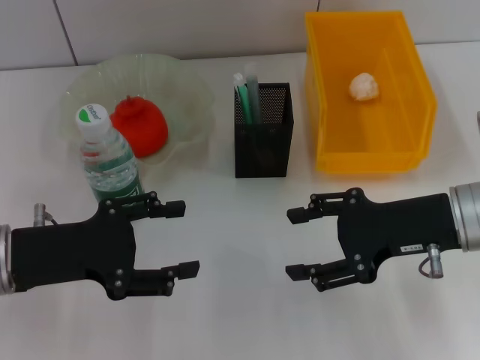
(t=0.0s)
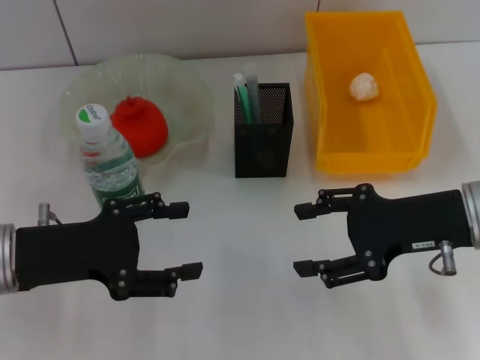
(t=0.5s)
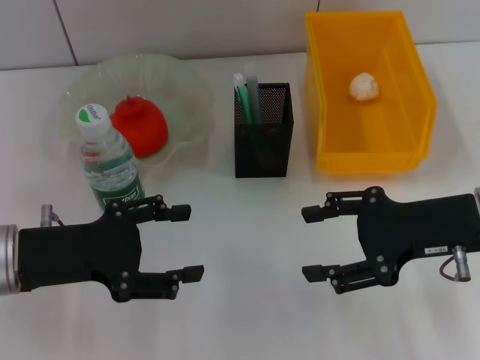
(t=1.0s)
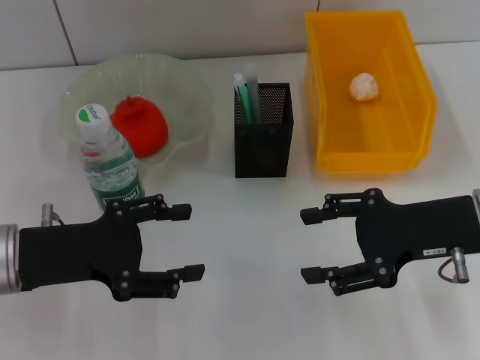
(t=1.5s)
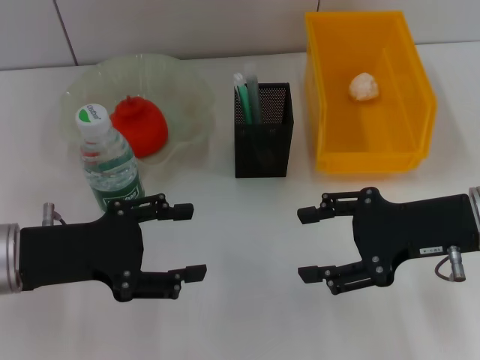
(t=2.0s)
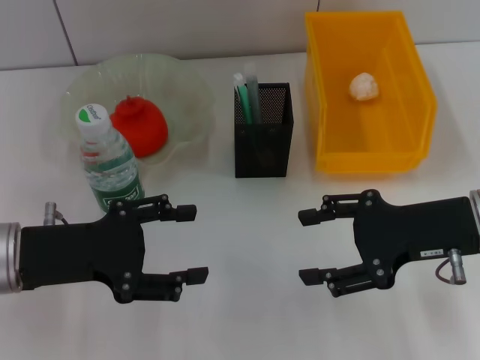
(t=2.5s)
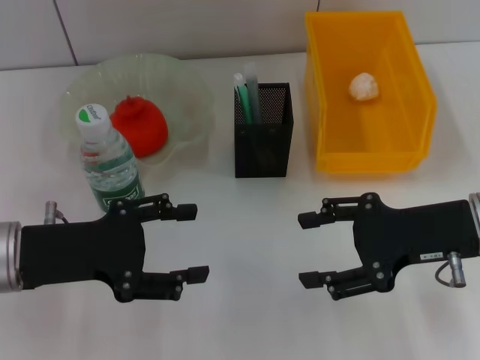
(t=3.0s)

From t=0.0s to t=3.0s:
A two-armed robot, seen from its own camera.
From t=0.0s to t=1.5s: The grippers stay close to where they were, moving slightly.
From t=1.5s to t=3.0s: Neither gripper changes place.

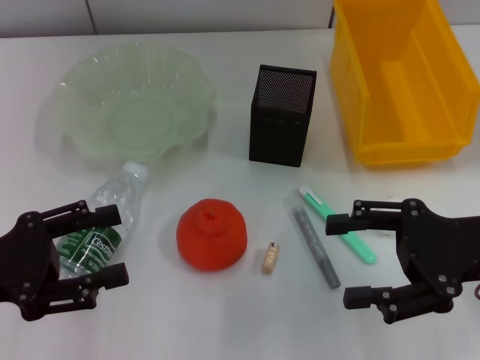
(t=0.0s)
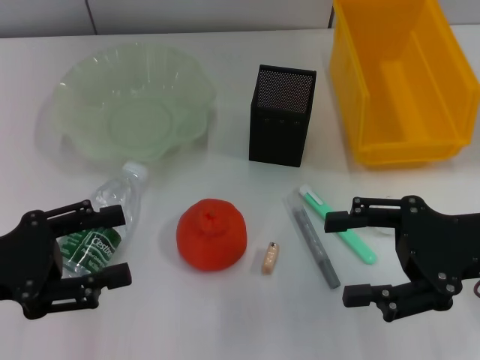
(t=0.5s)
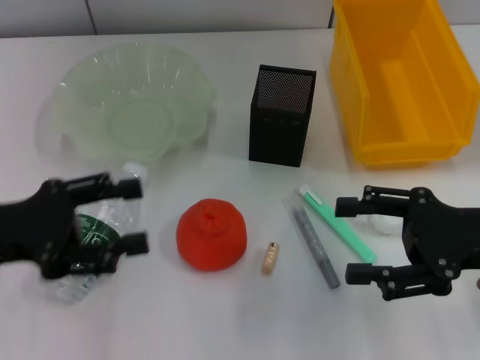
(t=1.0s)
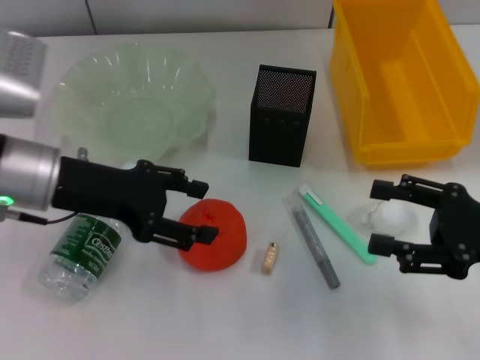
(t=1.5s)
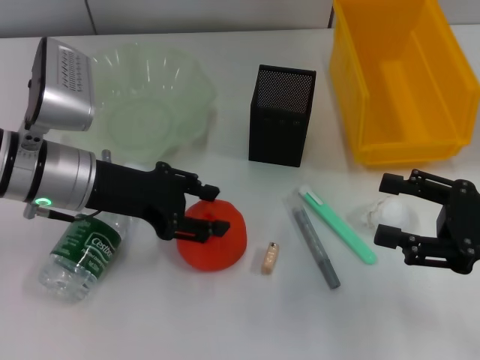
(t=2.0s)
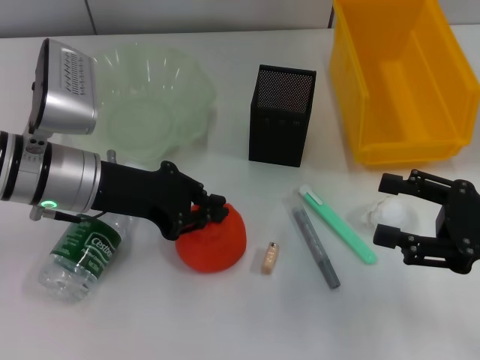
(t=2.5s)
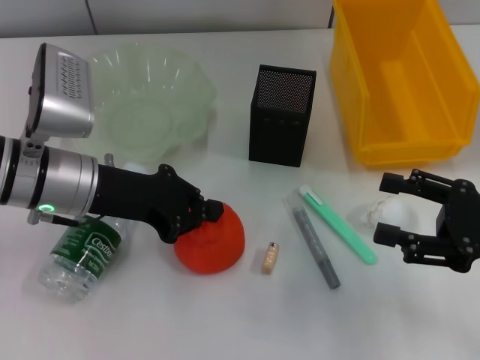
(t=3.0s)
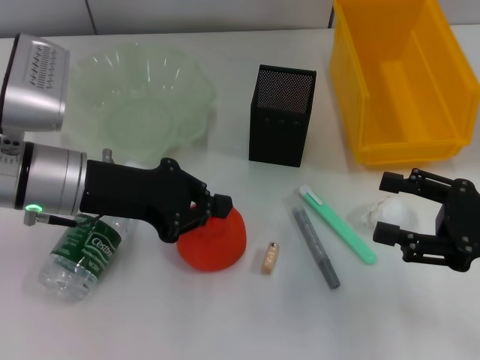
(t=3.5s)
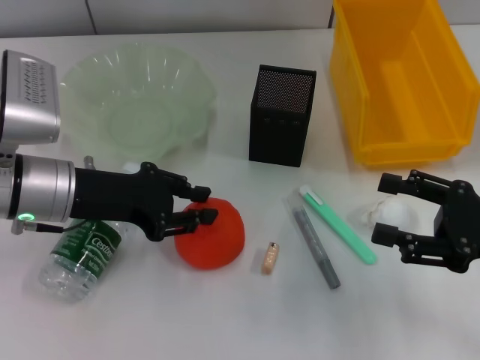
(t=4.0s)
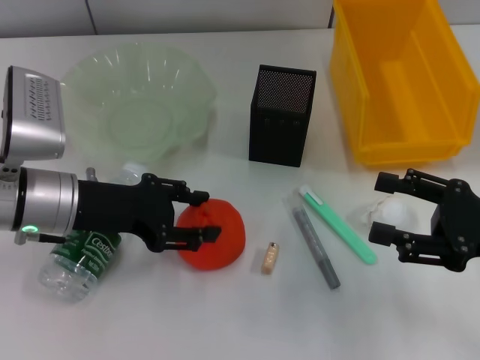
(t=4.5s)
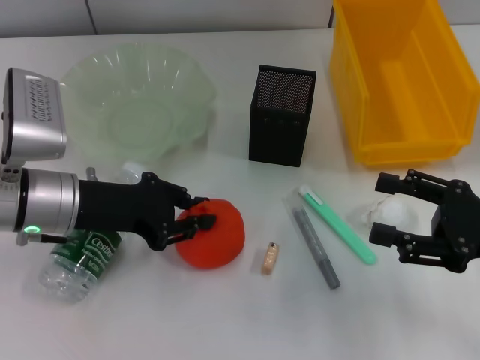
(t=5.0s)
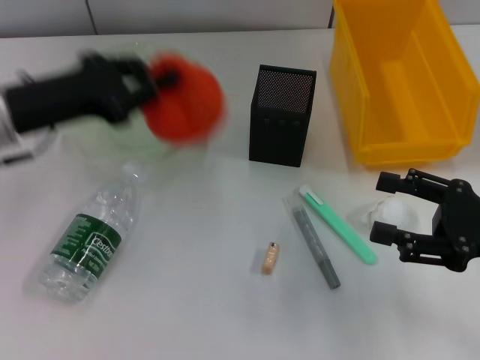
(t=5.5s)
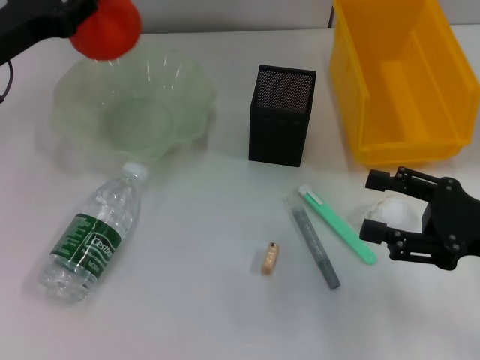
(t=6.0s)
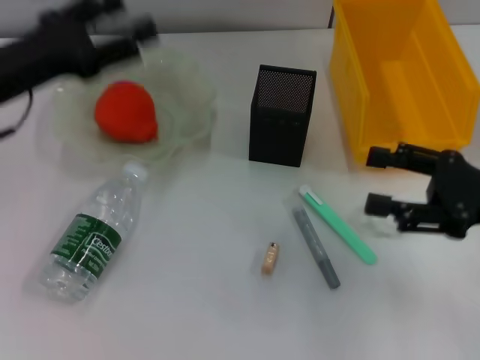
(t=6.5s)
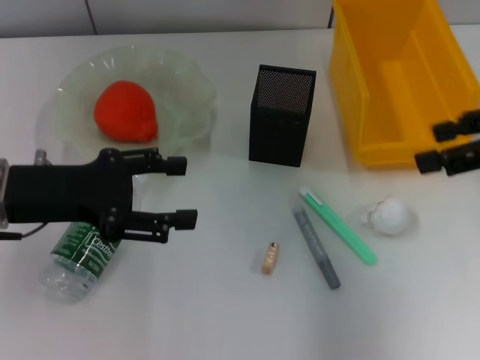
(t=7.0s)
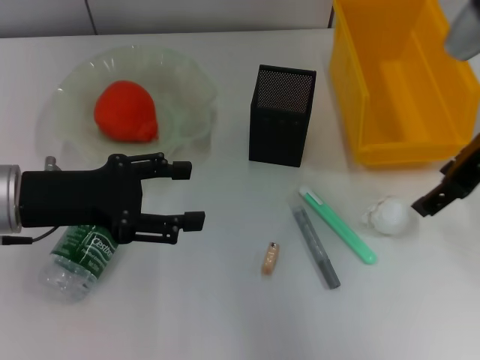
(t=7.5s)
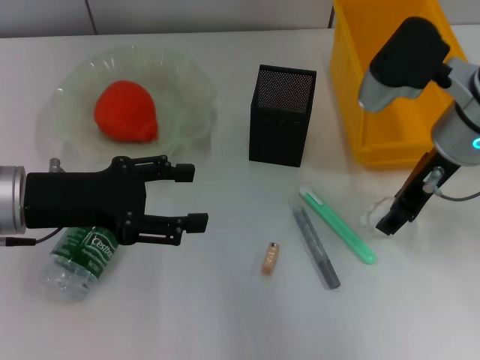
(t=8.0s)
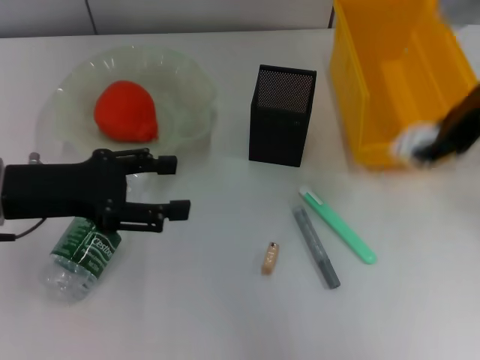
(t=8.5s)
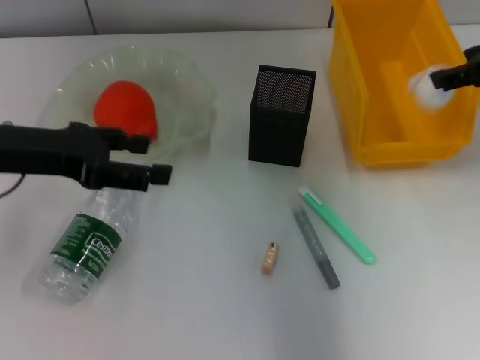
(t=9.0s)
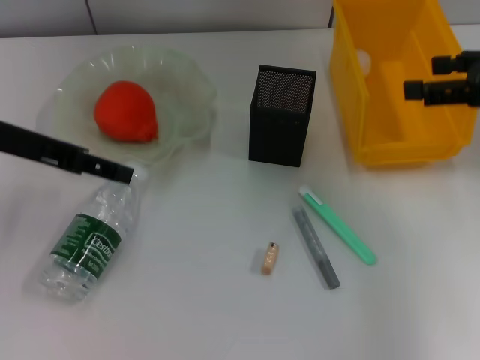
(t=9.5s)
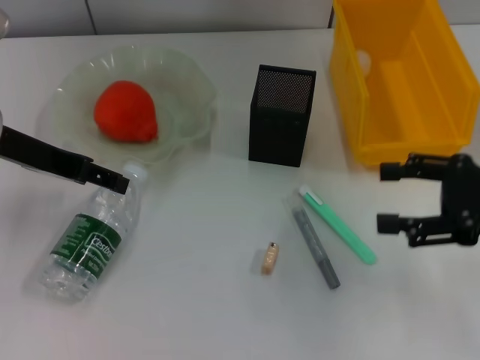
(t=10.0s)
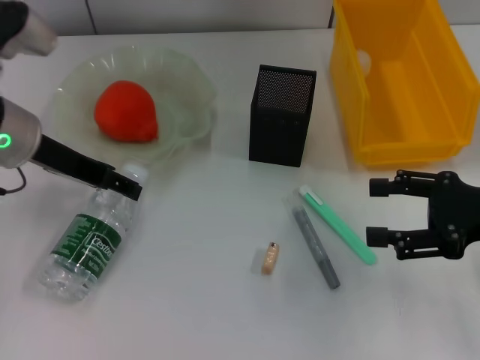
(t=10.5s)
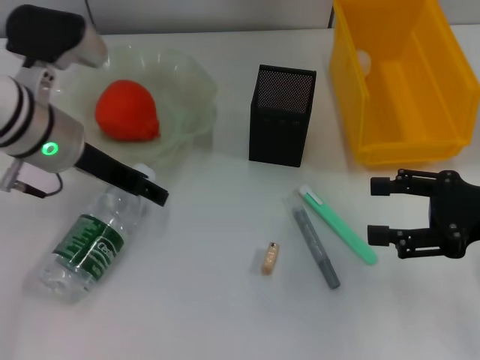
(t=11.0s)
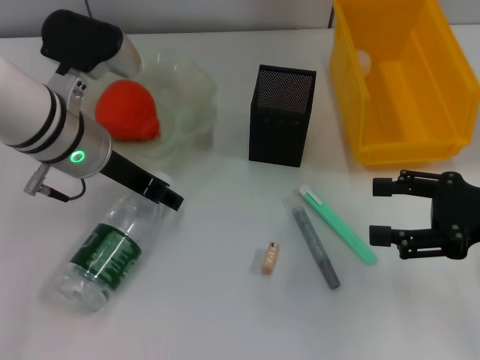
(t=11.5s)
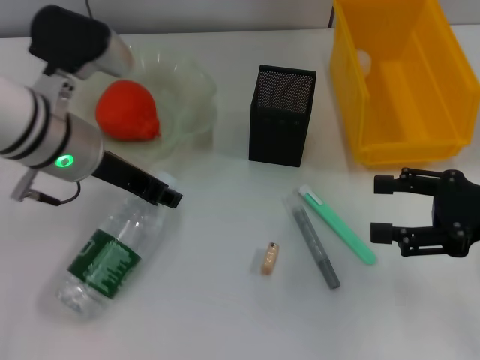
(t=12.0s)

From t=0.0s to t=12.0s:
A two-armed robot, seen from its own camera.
Step, from t=0.0s to t=4.5s: Grab the orange with the left hand.
Step, from t=5.5s to t=6.5s: Place the orange into the fruit bowl with the left hand.
Step, from t=7.0s to t=8.0s: Grab the paper ball with the right hand.
Step, from t=8.5s to t=9.0s: Place the paper ball into the trash can with the right hand.
Step, from t=9.5s to t=11.5s: Grab the water bottle with the left hand.
From t=0.0s to t=2.0s: The left gripper moves forward and to the right, roughly 15 cm, while the right gripper ends up some 5 cm from where it was.
From t=2.0s to t=4.0s: The left gripper closes up.
From t=4.0s to t=6.0s: The left gripper goes some 10 cm to the left and forward, and opens, then closes once more.
From t=6.0s to t=8.0s: The right gripper heads forward, to the left and upward, covering approximately 20 cm. Meanwhile the left gripper moves backward, approximately 10 cm, and opens its fingers.
From t=8.0s to t=10.0s: The left gripper moves upward and forward, about 10 cm. The right gripper travels to the right and backward by approximately 15 cm.
From t=10.0s to t=12.0s: The left gripper goes approximately 10 cm to the right, and closes up.

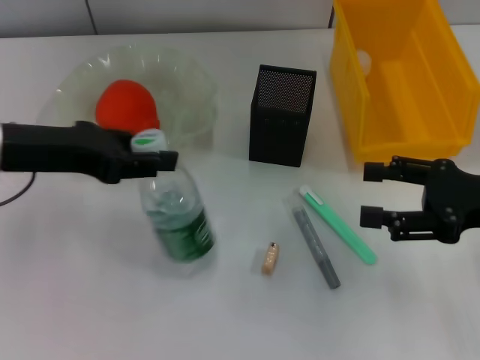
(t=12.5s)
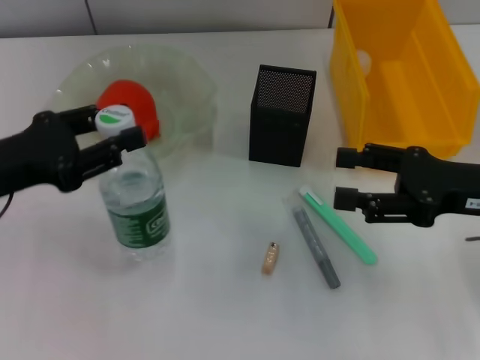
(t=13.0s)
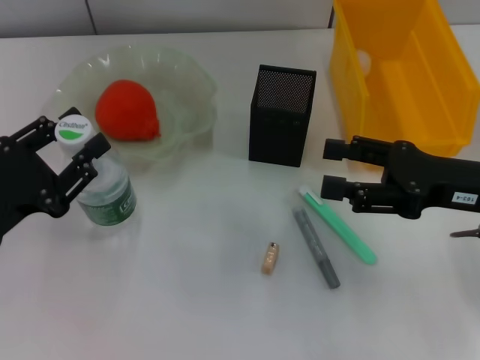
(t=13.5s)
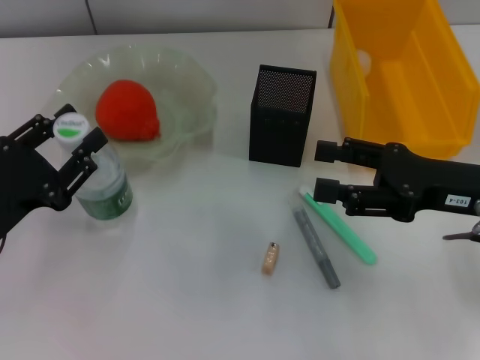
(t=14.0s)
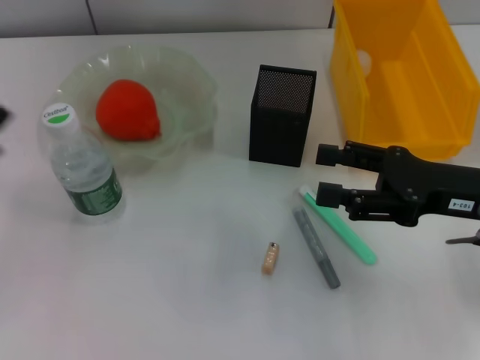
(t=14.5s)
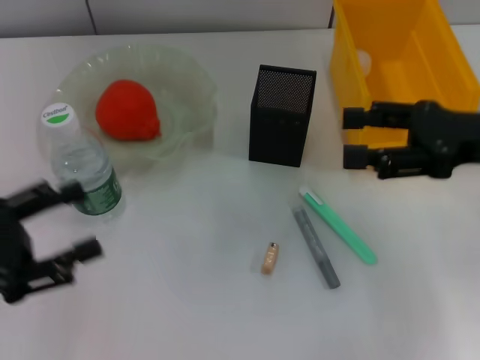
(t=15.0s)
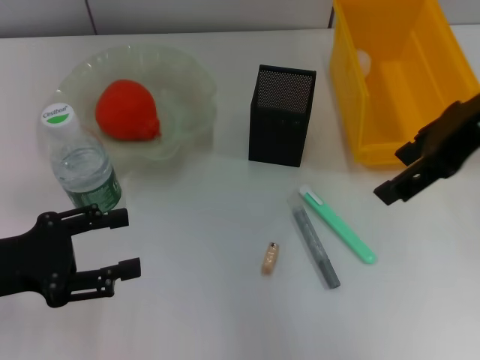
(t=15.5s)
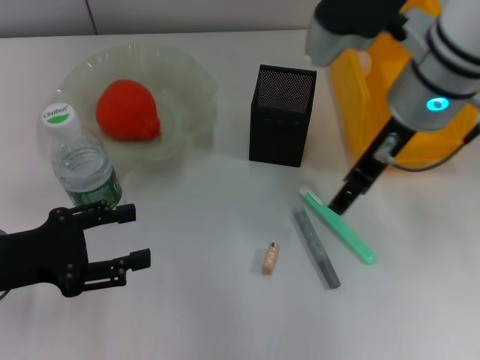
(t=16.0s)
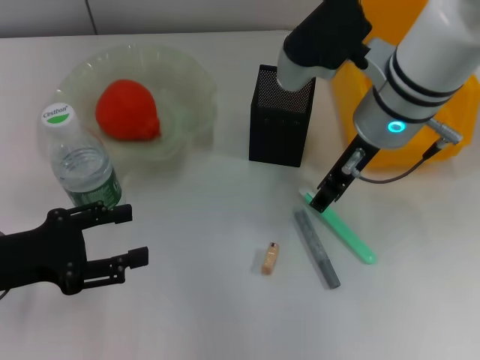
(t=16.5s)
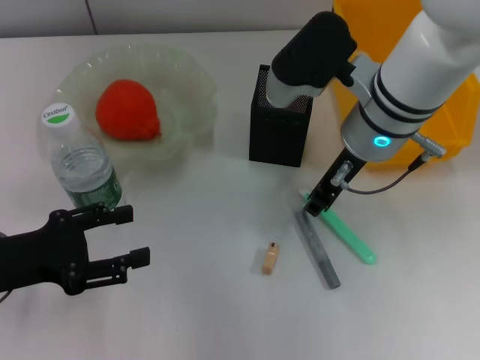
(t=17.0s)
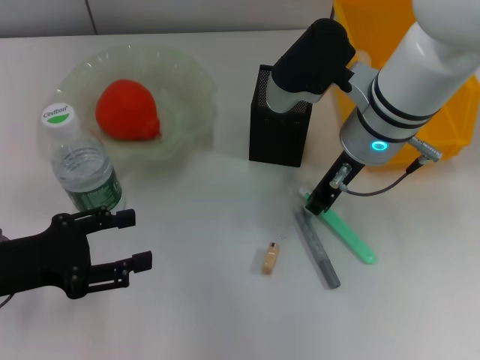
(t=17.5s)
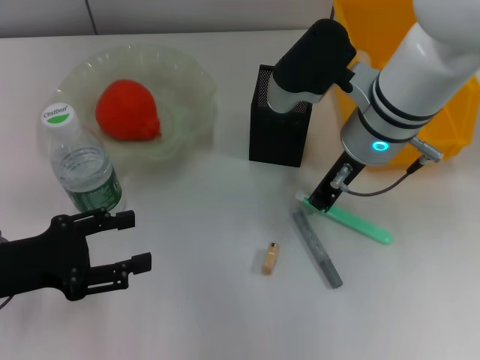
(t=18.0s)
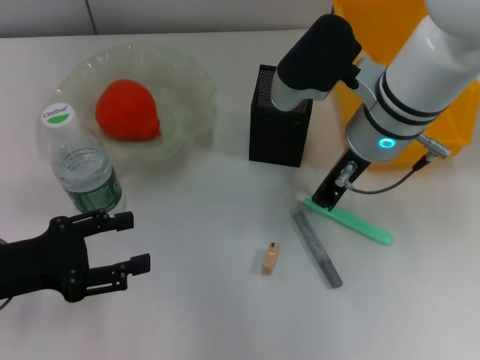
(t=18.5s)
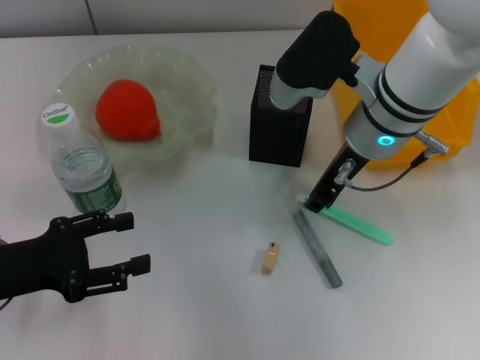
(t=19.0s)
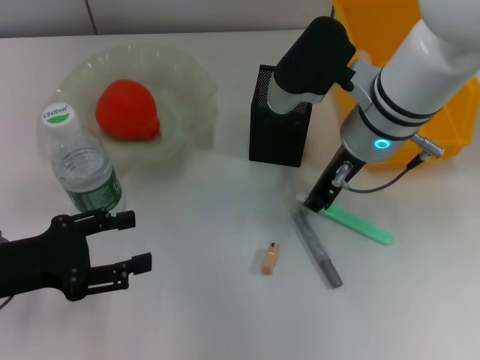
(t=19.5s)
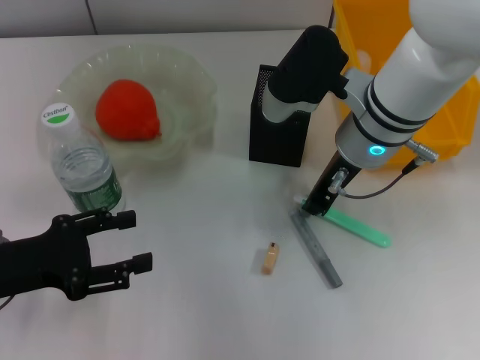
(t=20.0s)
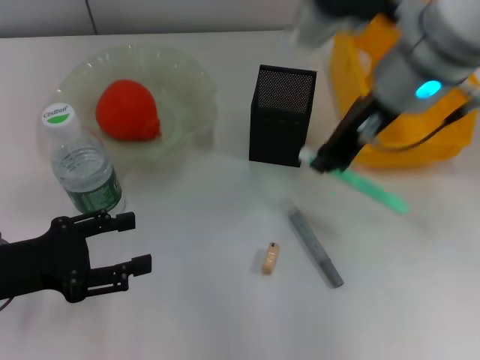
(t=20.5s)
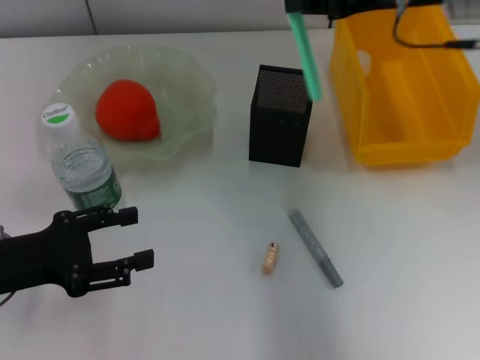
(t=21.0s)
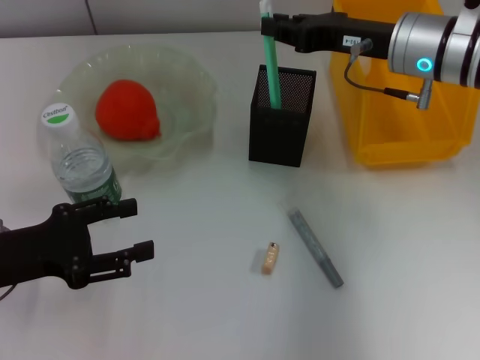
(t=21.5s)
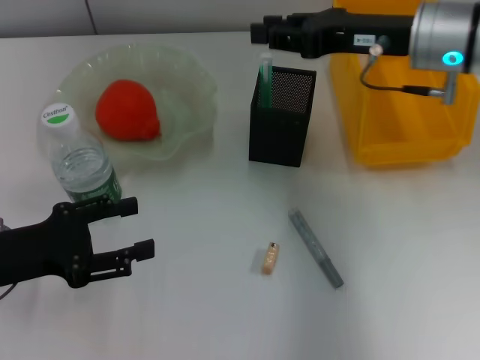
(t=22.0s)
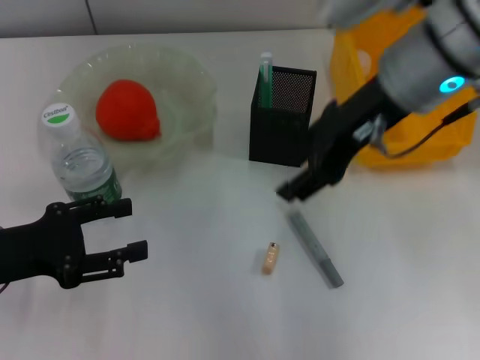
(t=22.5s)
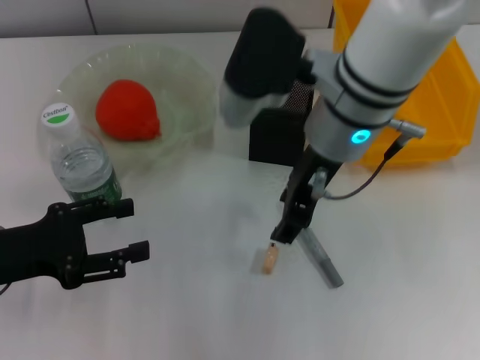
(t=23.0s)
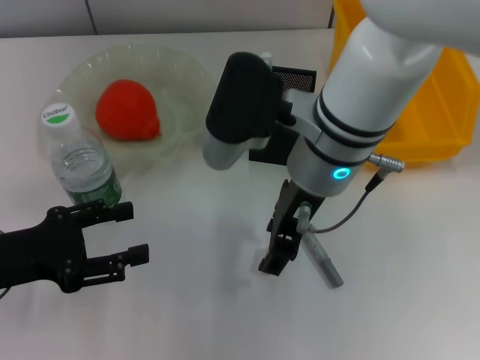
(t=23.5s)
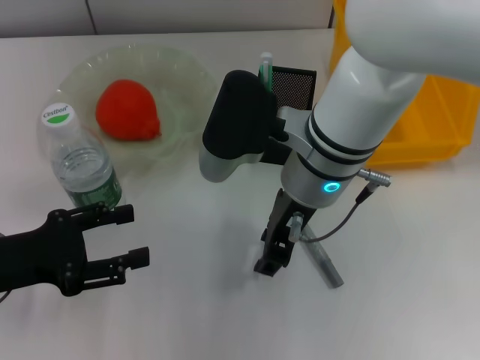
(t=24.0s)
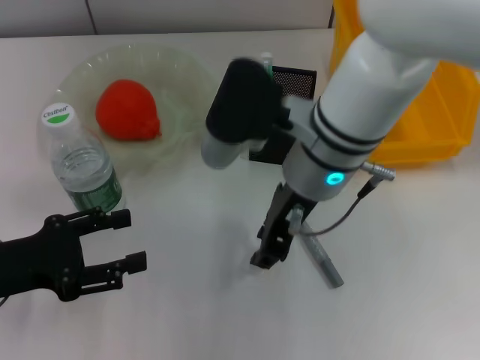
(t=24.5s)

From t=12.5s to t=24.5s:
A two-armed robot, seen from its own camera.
Step, from t=12.5s to t=14.0s: Place the water bottle on the table with the left hand.
Step, from t=14.5s to t=19.5s: Grab the blue utility knife with the right hand.
Step, from t=20.0s to t=22.0s: Place the blue utility knife into the pen holder with the right hand.
Step, from t=22.5s to t=24.0s: Grab the eraser with the right hand.
From t=12.5s to t=14.5s: The left gripper heads backward, downward and to the left, covering some 15 cm, and opens.
From t=14.5s to t=16.5s: The right gripper is displaced to the left, forward and upward by roughly 20 cm.
From t=16.5s to t=18.5s: The right gripper closes up.
From t=18.5s to t=20.5s: The right gripper is displaced upward by roughly 5 cm.
From t=20.5s to t=22.5s: The right gripper travels downward and back again, roughly 5 cm each way.
From t=22.5s to t=24.5s: The right gripper heads downward and to the left, covering some 10 cm.
